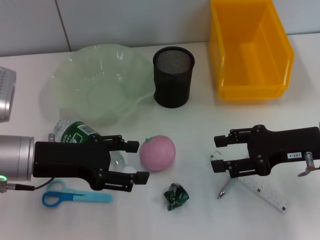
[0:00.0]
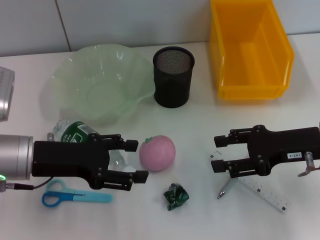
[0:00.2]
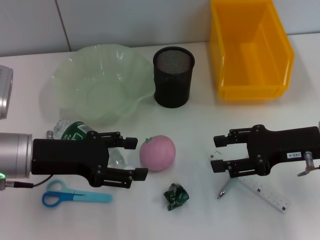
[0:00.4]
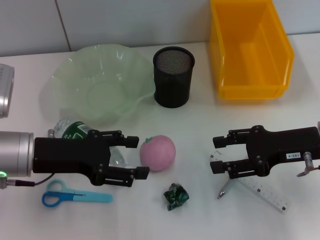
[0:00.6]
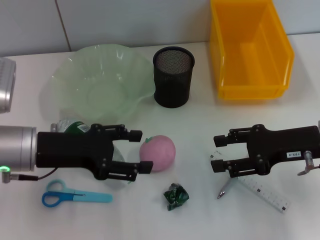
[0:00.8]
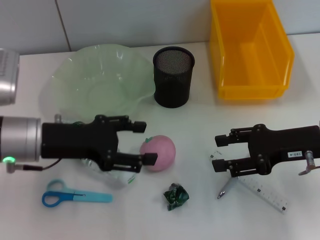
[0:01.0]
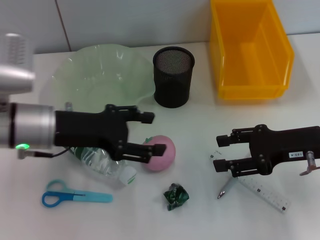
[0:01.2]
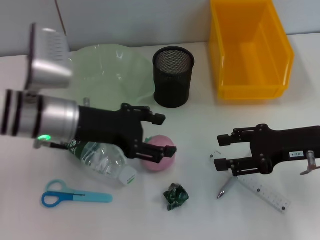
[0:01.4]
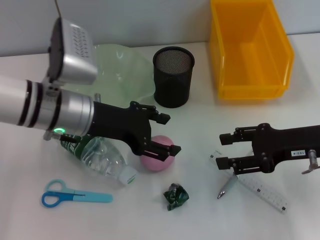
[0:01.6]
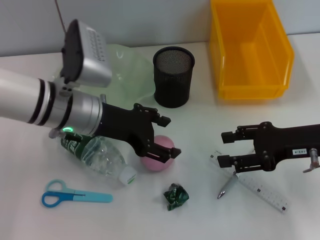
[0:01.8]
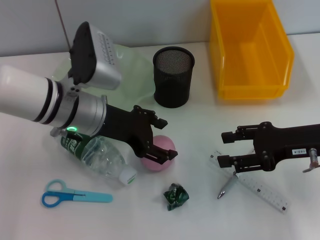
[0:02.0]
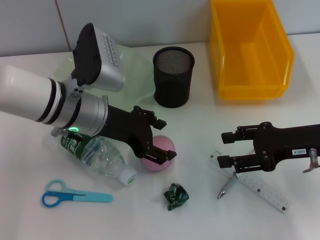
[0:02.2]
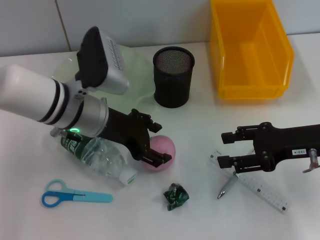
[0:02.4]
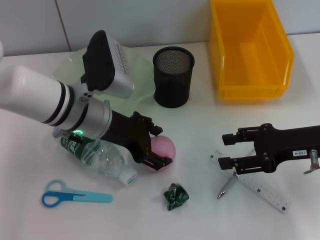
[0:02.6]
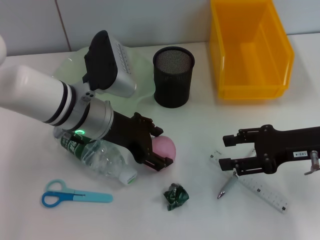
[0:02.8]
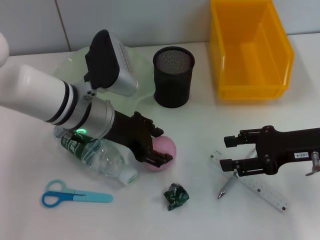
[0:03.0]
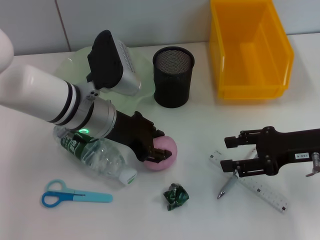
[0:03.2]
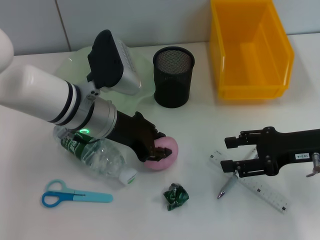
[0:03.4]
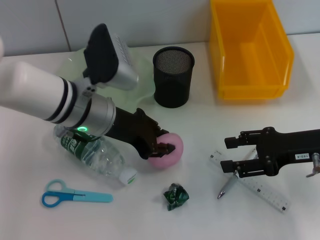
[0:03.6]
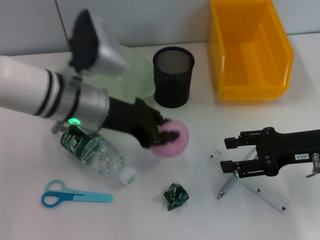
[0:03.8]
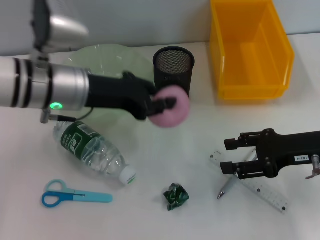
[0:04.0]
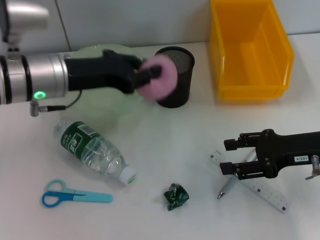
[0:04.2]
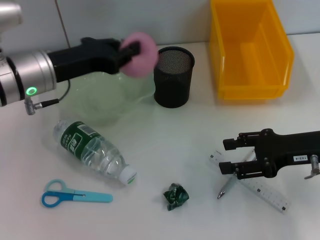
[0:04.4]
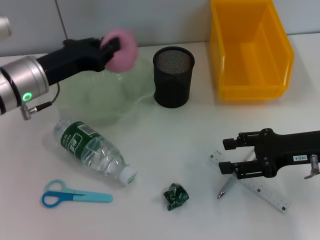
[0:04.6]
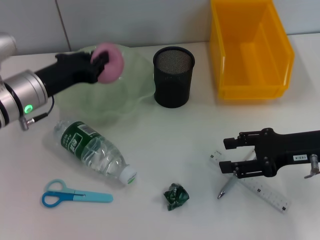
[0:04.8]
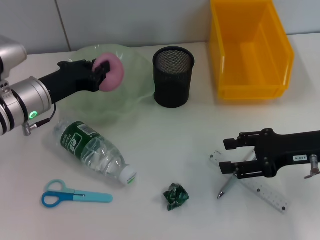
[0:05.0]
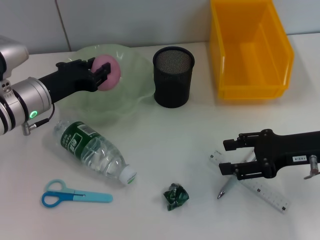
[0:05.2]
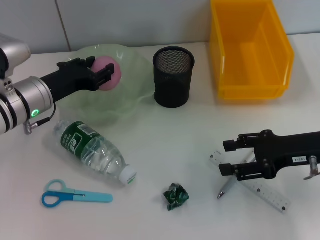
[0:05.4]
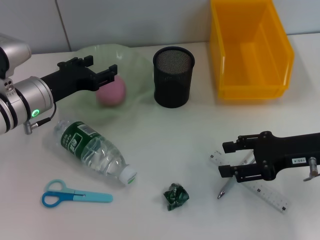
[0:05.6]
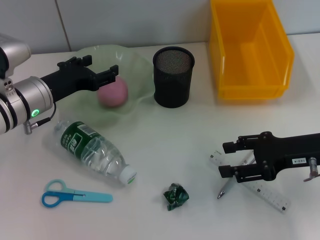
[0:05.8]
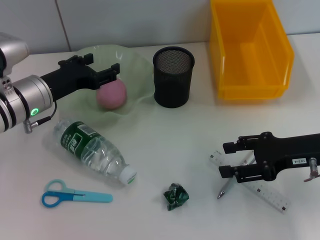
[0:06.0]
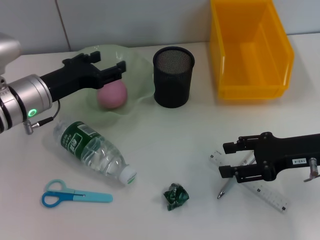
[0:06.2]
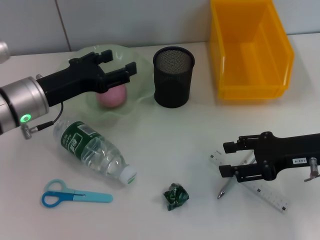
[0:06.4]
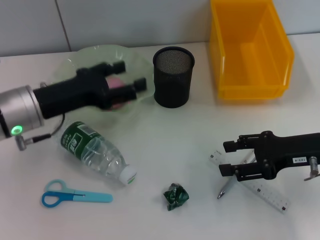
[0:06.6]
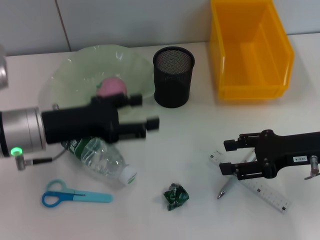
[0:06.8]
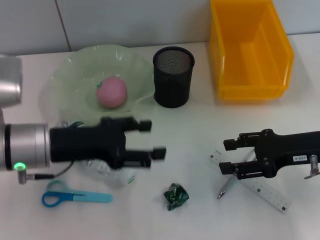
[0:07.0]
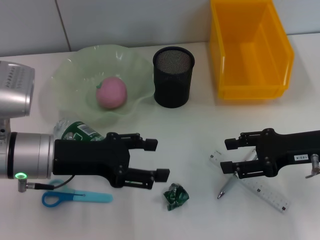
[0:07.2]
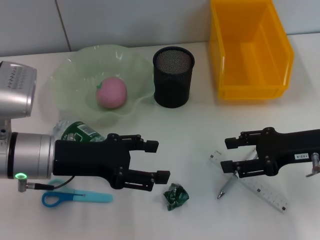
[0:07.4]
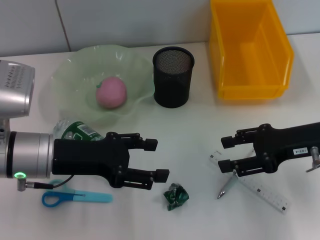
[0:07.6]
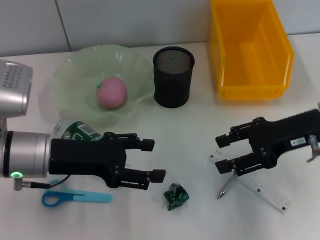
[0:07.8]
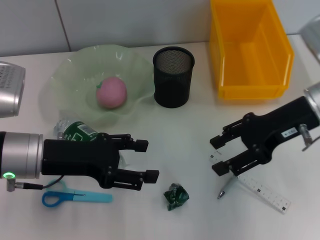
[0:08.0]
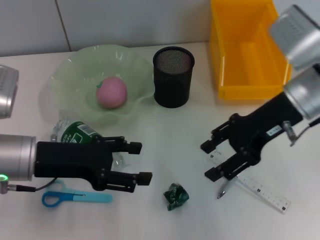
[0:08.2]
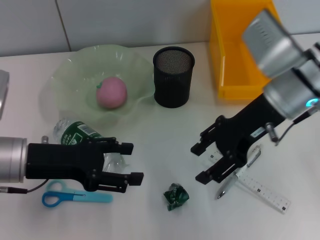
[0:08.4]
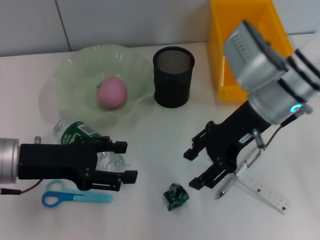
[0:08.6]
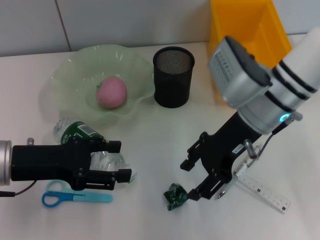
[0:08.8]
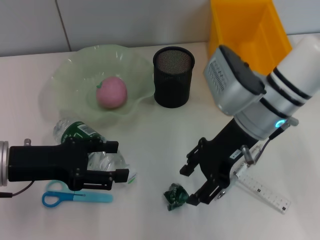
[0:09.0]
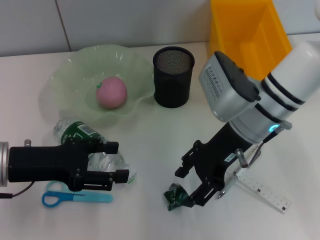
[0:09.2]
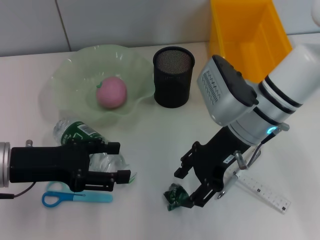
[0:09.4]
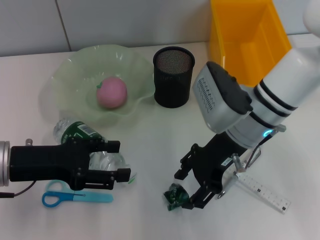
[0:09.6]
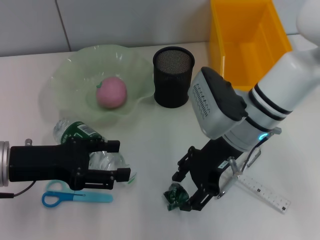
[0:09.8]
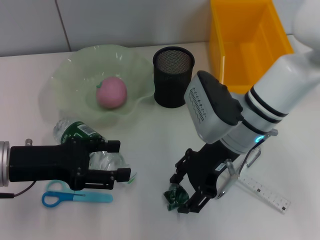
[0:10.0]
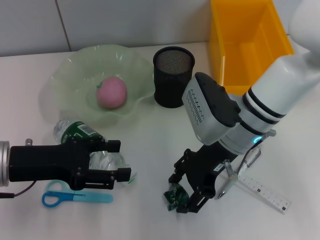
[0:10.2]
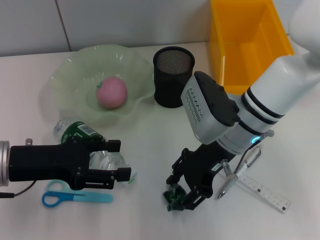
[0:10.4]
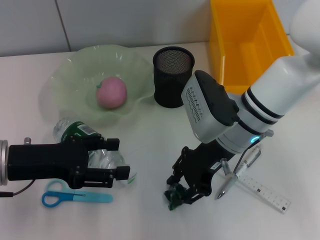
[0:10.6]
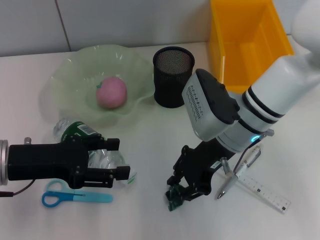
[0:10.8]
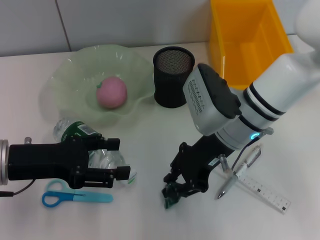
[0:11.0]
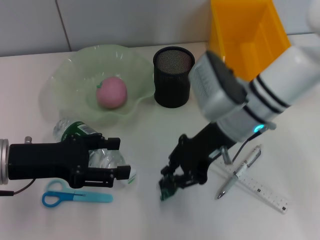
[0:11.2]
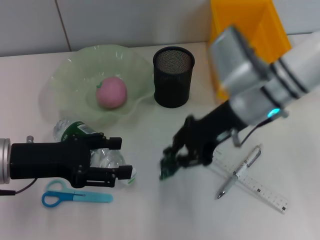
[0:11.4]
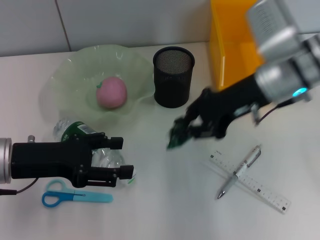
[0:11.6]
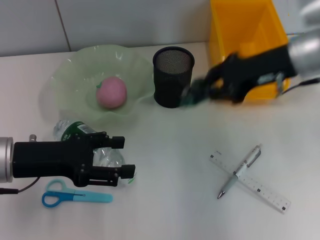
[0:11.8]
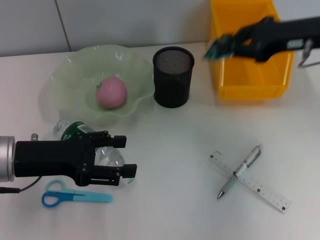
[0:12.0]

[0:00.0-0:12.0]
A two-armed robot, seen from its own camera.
Step, 0:00.0 to 0:03.2: Grab the peach with the left hand.
Step, 0:03.6 to 0:05.8: Place the peach into the fruit bowl with the left hand.
Step, 0:06.0 to 0:10.6: Grab the plastic with the right hand.
0:00.0 to 0:01.6: The left gripper moves to the right and forward, some 10 cm.
0:01.6 to 0:03.0: The grippers make only small movements.
0:03.0 to 0:04.4: The left gripper moves to the left, about 5 cm, and closes its fingers.
0:04.4 to 0:06.0: The left gripper shifts approximately 5 cm downward, and opens its fingers.
0:06.0 to 0:07.6: The left gripper is displaced backward by roughly 10 cm.
0:07.6 to 0:09.0: The left gripper shifts some 5 cm to the left; the right gripper is displaced to the left by roughly 15 cm.
0:09.0 to 0:10.4: The grippers move only a little.
0:10.4 to 0:12.0: The right gripper heads to the right and upward, covering approximately 20 cm, and closes up.

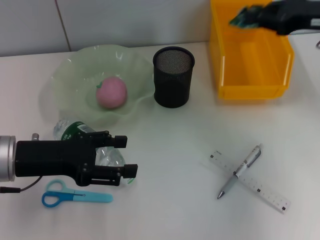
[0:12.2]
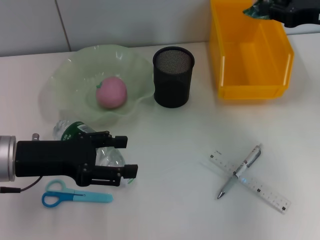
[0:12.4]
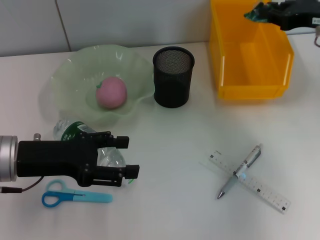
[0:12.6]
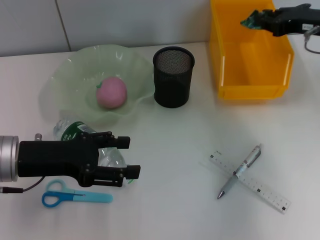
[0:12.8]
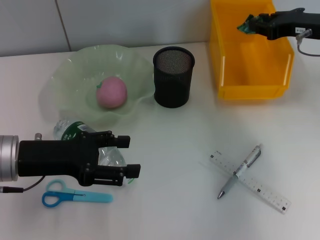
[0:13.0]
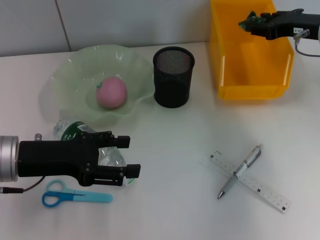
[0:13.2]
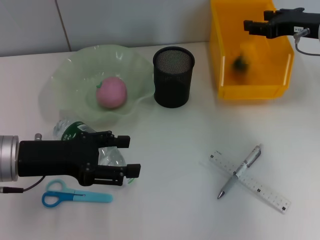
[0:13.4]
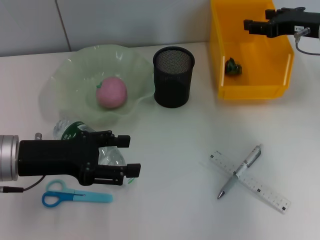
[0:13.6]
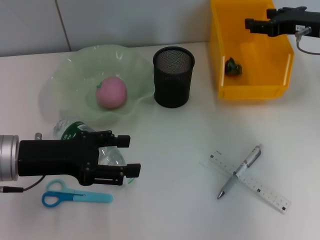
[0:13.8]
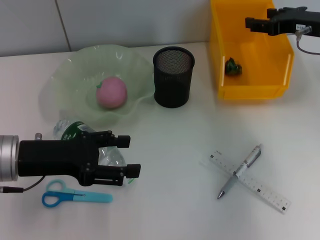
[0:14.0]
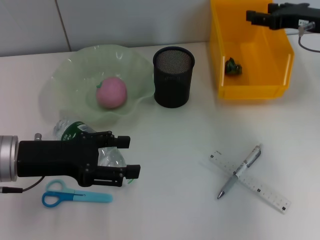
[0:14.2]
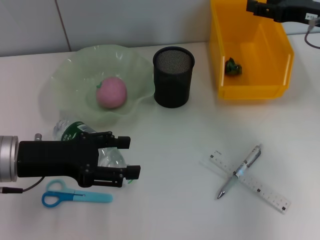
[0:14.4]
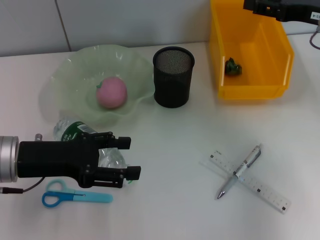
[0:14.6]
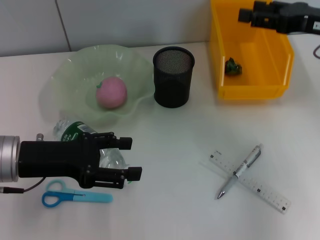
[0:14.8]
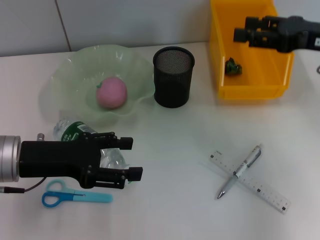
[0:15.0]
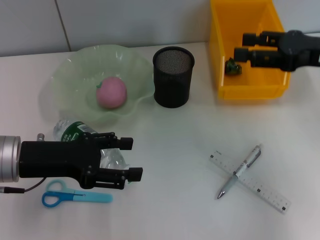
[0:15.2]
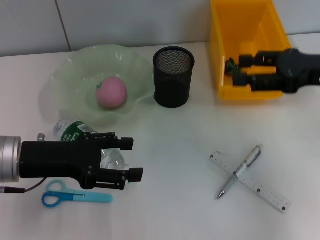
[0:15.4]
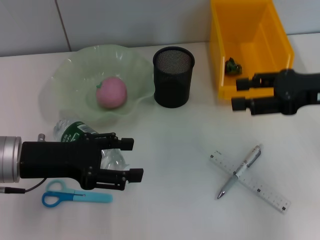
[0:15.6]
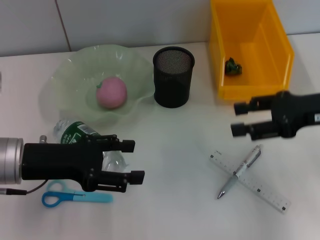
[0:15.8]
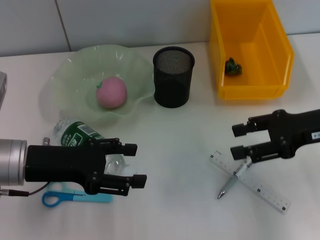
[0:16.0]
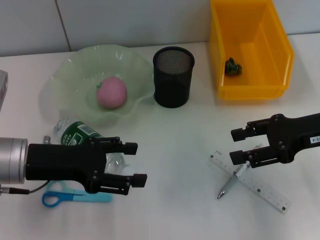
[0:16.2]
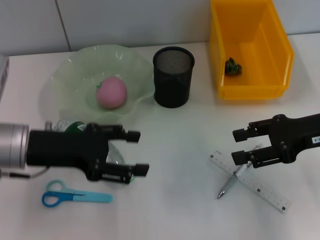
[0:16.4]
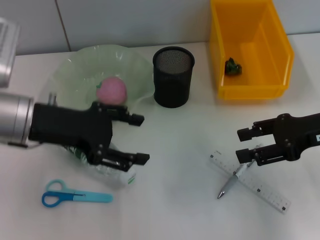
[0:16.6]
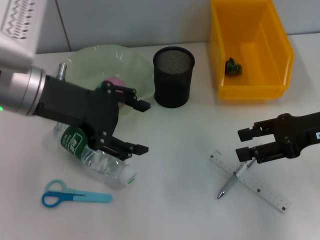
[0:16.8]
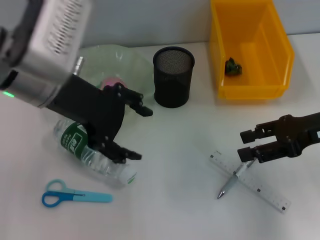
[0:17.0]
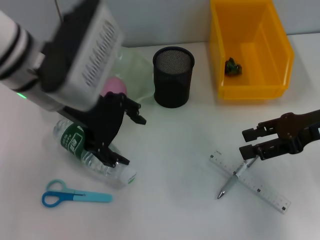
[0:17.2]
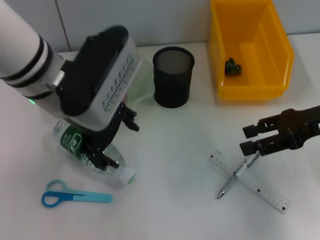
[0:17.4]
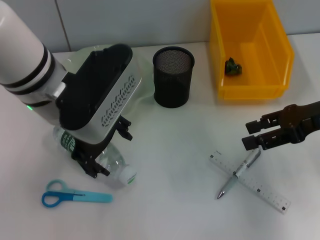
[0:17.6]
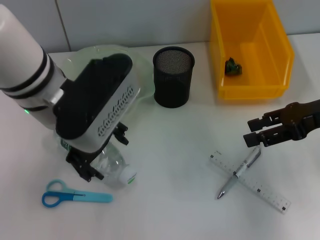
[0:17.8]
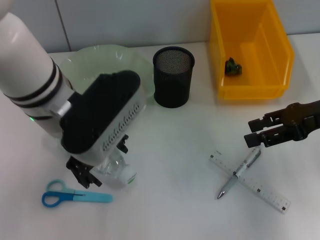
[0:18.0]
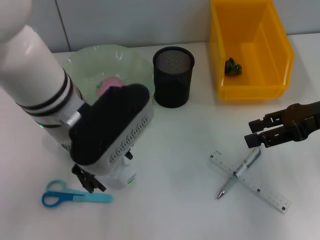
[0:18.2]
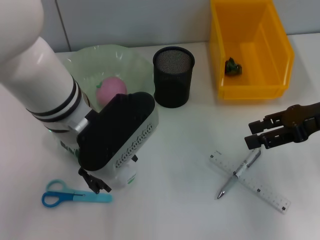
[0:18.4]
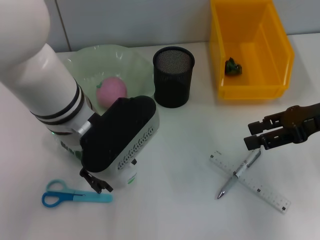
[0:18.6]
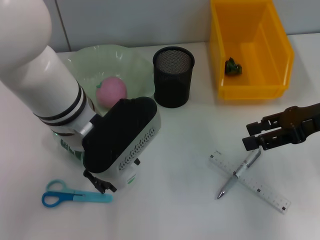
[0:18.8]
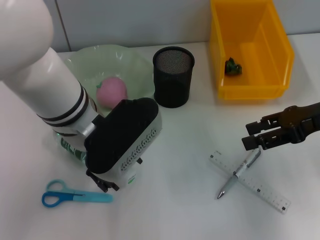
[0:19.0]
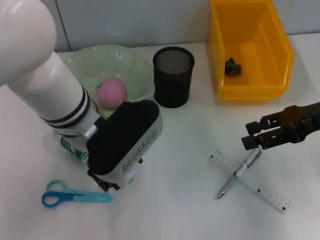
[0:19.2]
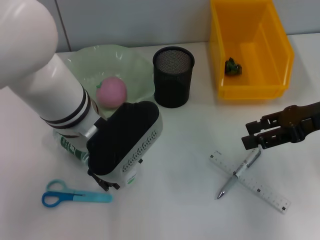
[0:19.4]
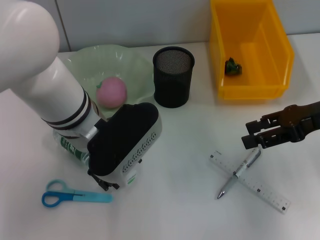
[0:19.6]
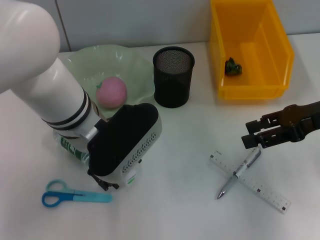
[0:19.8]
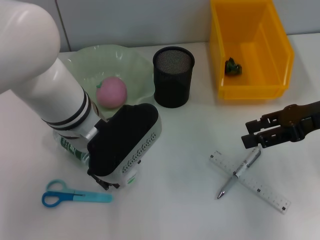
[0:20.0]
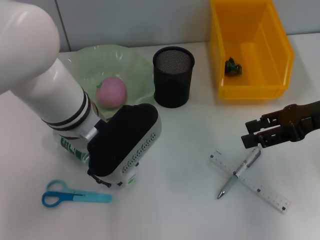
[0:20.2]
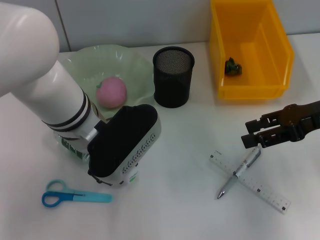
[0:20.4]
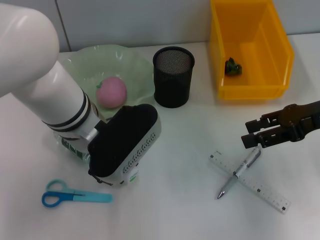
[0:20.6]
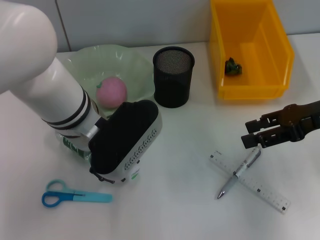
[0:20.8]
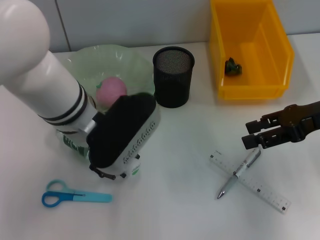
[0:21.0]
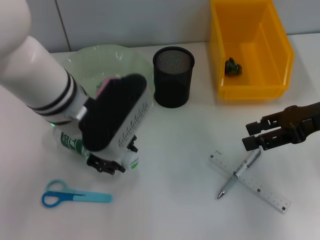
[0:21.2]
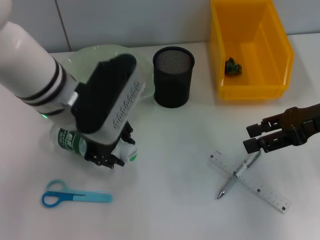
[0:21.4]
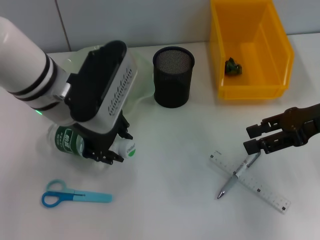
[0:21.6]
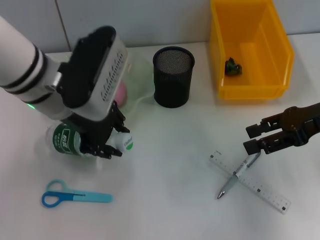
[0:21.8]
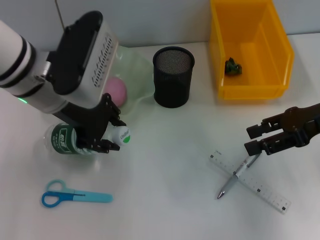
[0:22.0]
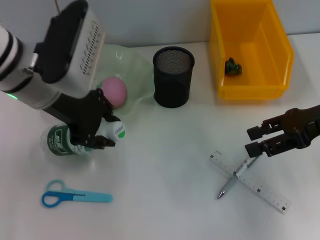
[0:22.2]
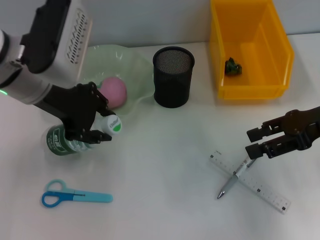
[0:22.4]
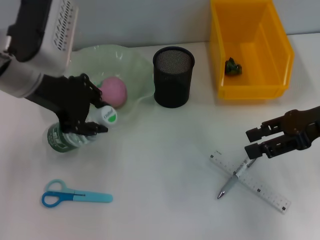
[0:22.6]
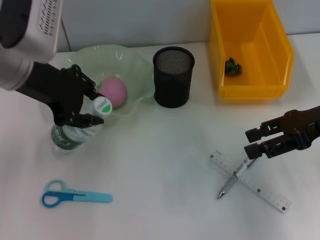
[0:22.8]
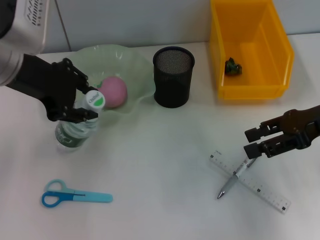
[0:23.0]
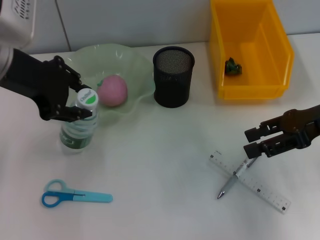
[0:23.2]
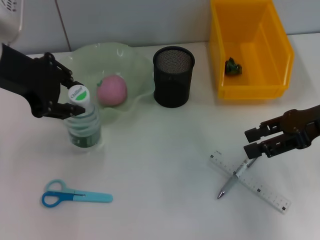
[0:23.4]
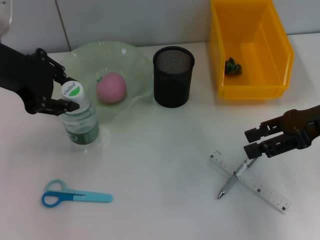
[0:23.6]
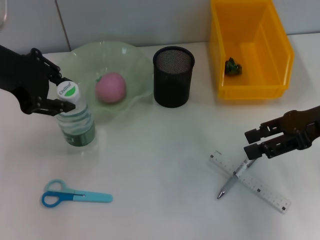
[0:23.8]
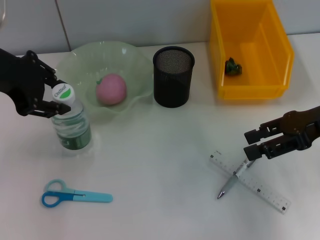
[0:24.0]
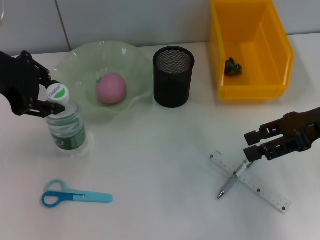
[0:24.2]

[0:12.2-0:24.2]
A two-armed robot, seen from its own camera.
Step, 0:13.6 to 0:20.2: Grab the water bottle with the left hand.
0:12.2 to 0:13.8: The right gripper changes place by roughly 5 cm, and opens up.
0:13.8 to 0:15.2: The right gripper is displaced backward by some 10 cm.
0:15.2 to 0:16.6: The right gripper changes place by approximately 5 cm; the left gripper changes place by roughly 5 cm.
0:16.6 to 0:18.2: The left gripper shifts some 10 cm to the right.
0:18.2 to 0:19.8: The grippers stay close to where they were, moving slightly.
0:19.8 to 0:21.2: The left gripper closes its fingers.
0:21.2 to 0:22.6: The left gripper shifts some 10 cm to the left and upward.
0:22.6 to 0:24.2: The left gripper travels to the left by about 5 cm.
